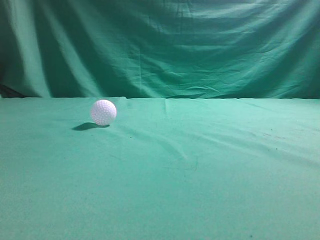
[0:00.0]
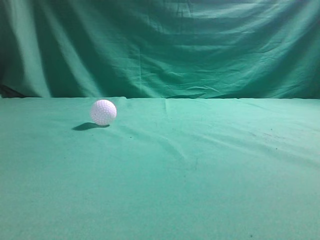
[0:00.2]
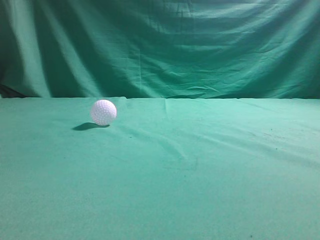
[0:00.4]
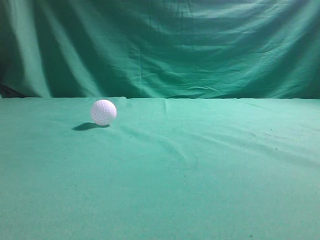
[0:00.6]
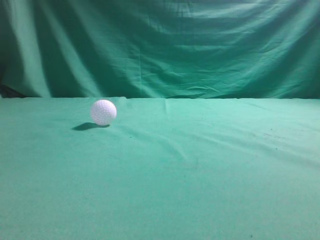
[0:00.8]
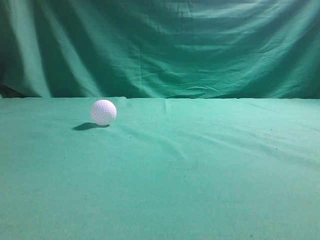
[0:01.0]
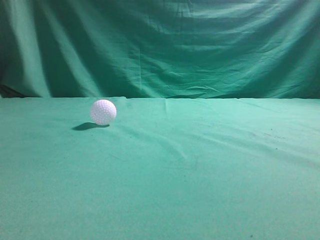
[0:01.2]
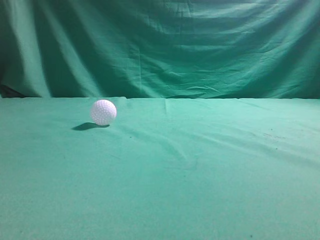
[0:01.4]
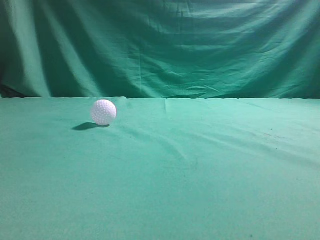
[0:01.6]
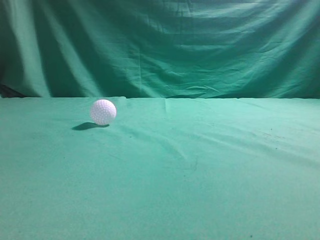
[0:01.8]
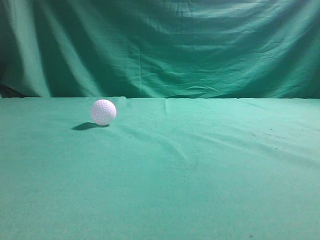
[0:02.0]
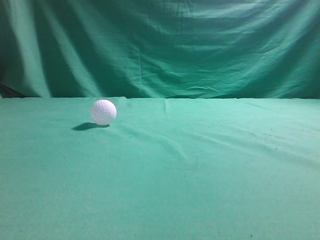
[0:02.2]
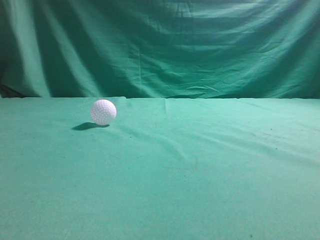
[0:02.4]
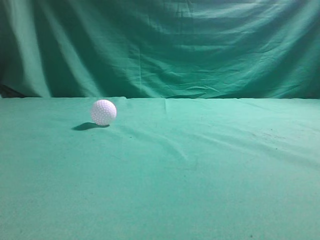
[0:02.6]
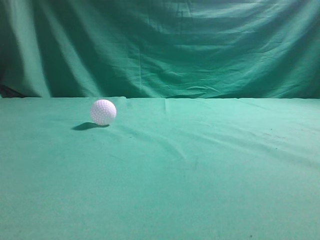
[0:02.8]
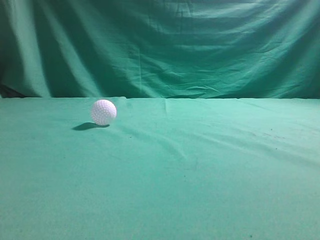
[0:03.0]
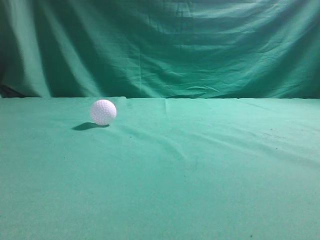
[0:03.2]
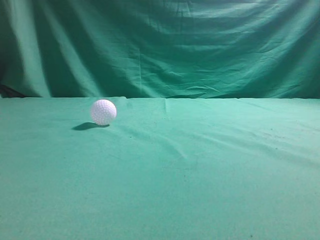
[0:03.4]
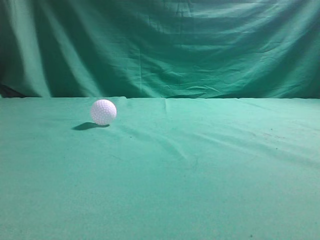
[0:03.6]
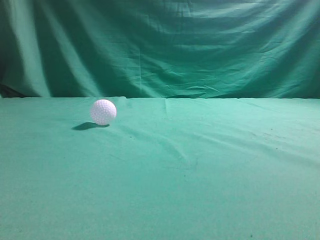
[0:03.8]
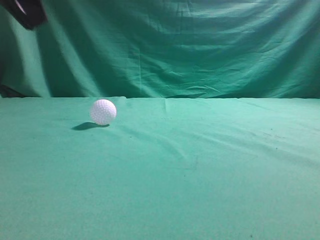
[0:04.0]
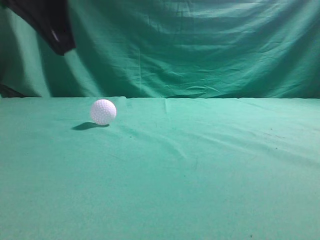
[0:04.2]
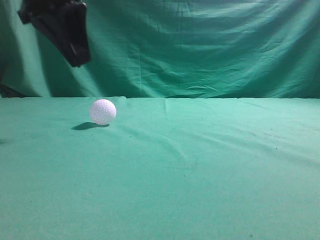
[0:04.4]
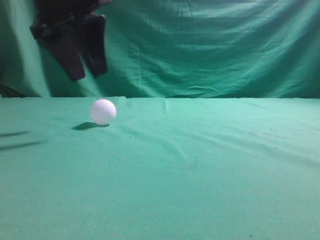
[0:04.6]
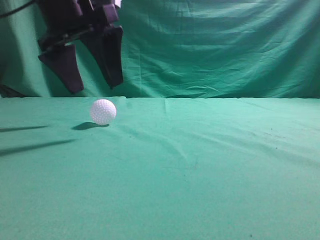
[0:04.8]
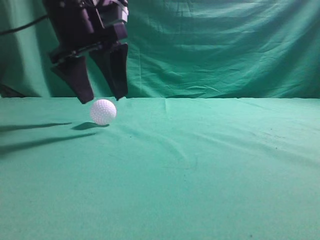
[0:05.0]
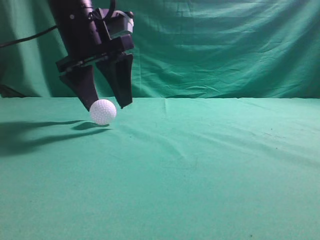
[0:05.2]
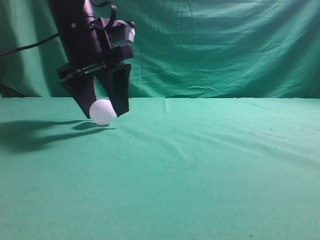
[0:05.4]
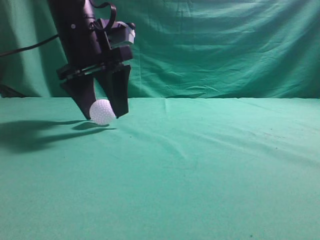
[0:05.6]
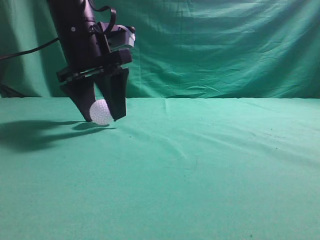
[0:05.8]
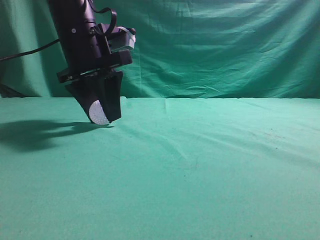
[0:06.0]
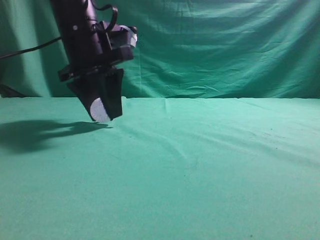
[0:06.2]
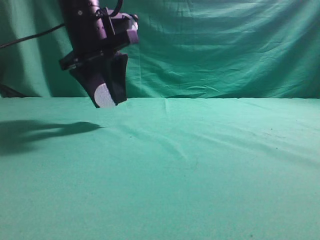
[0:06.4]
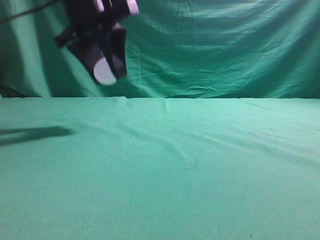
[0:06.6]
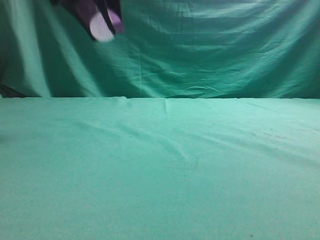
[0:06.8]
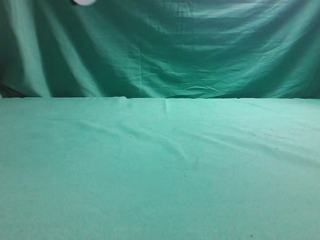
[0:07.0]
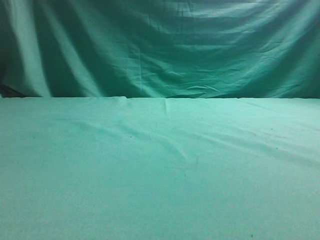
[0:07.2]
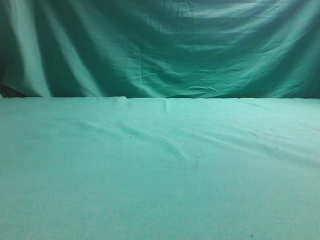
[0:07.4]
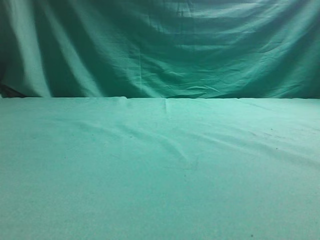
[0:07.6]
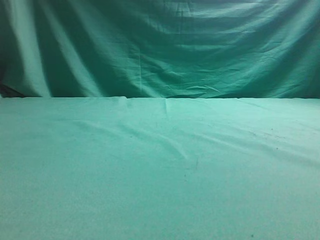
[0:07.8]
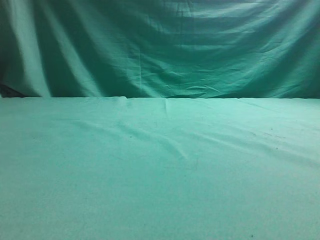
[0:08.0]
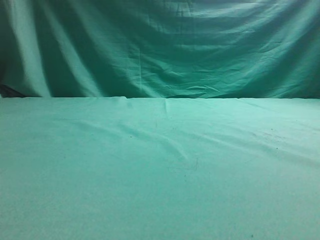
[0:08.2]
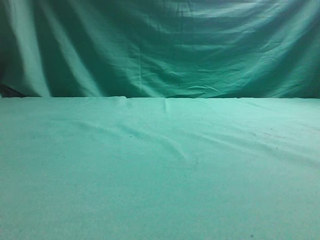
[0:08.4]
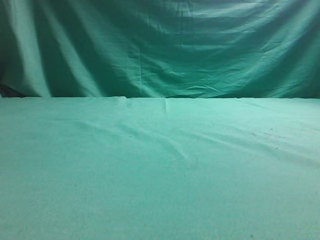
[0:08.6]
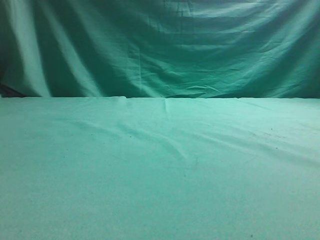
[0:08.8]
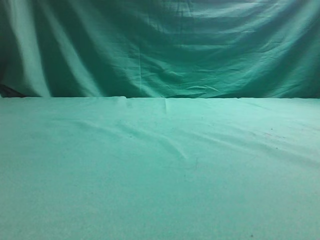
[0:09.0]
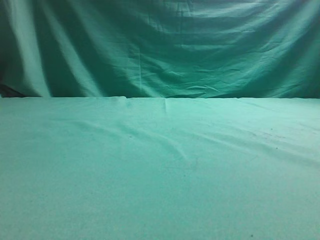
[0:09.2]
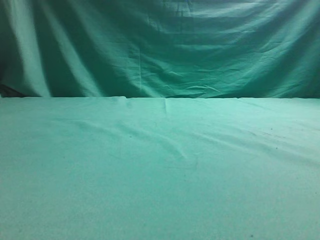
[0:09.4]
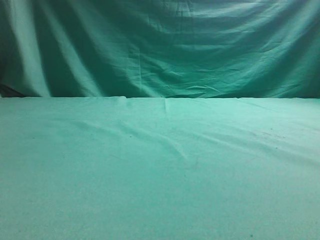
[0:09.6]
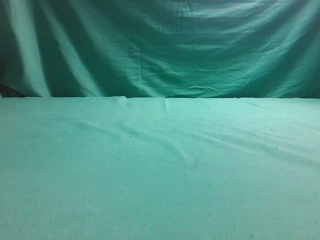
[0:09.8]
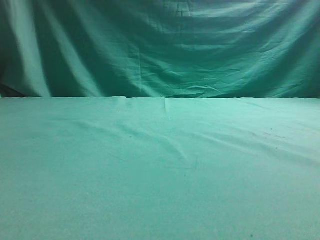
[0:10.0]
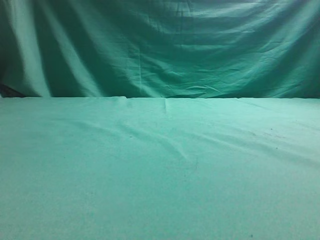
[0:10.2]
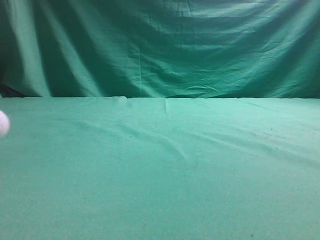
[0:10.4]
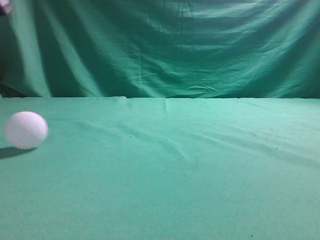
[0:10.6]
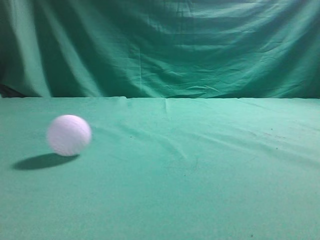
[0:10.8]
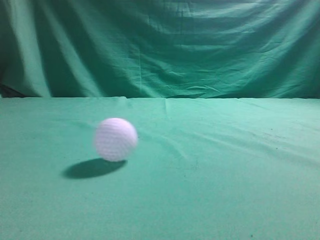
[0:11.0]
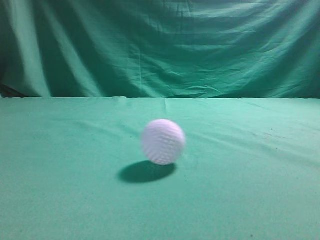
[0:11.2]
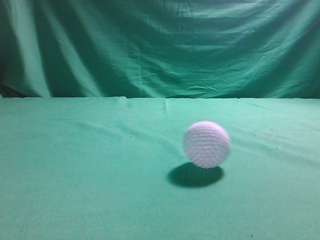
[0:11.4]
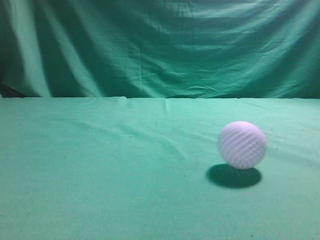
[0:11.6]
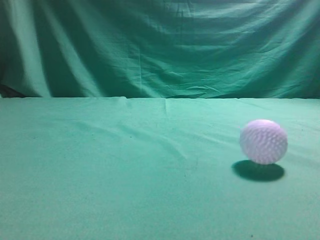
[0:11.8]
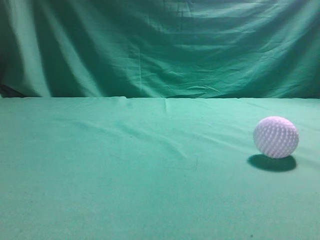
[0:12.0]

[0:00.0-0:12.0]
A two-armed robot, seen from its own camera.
Task of the whole recording: pick up the ball and place it on the plate, then pick up the ball from the plate and put it in the center of the table.
Step, 0:00.0 to 0:06.4: Grab the spherical object with your left arm.
Step, 0:06.6 to 0:09.8: Place the sphere on the white object.
0:03.0 to 0:04.4: The left gripper moves forward and to the right, some 30 cm.
0:04.4 to 0:06.0: The left gripper goes roughly 10 cm downward and forward, and opens its fingers.
0:06.0 to 0:07.6: The left gripper shifts approximately 25 cm upward, to the left and backward. Meanwhile the right gripper heads upward, covering some 5 cm.

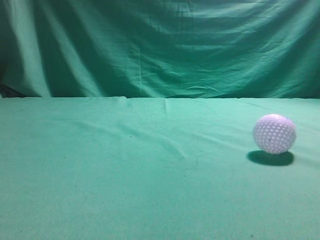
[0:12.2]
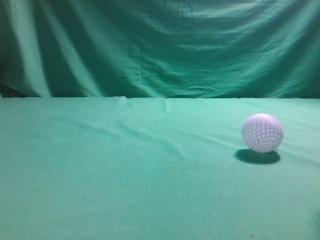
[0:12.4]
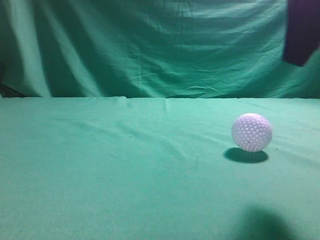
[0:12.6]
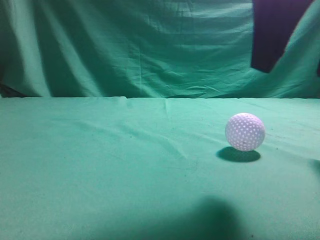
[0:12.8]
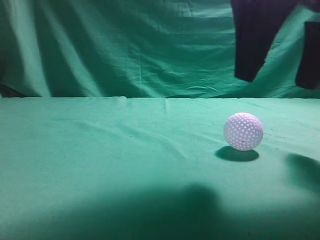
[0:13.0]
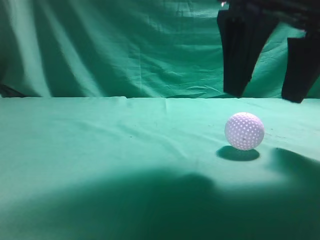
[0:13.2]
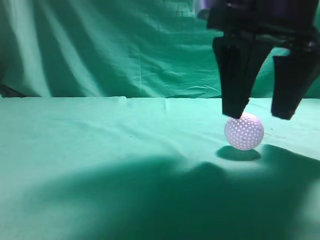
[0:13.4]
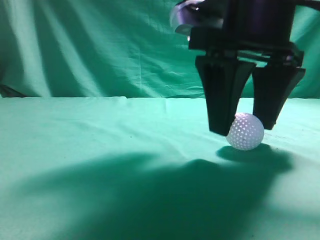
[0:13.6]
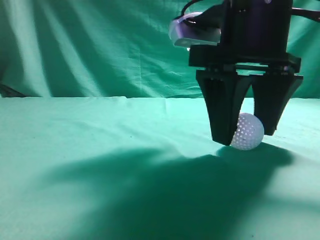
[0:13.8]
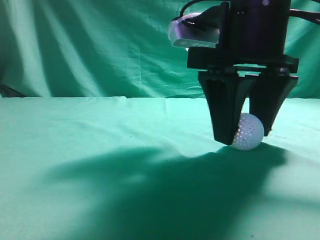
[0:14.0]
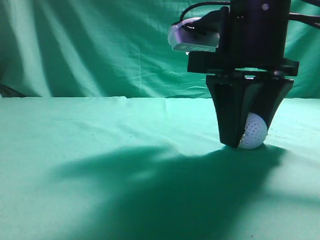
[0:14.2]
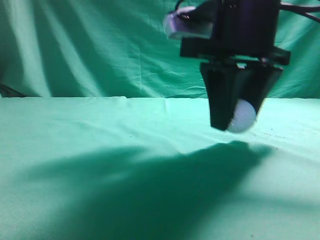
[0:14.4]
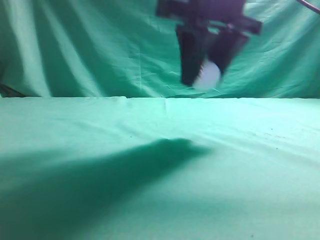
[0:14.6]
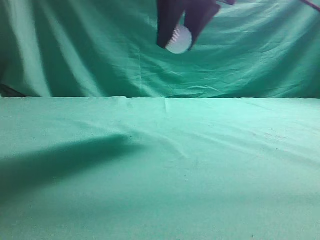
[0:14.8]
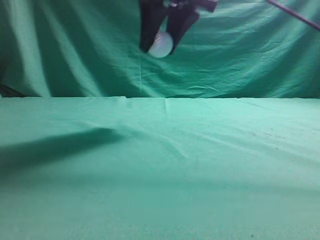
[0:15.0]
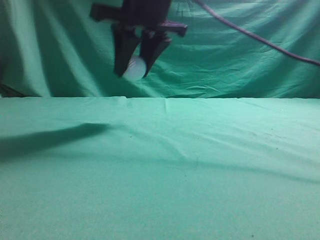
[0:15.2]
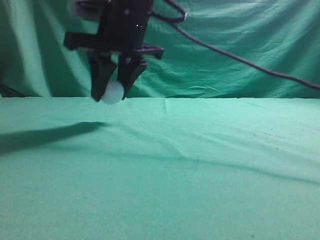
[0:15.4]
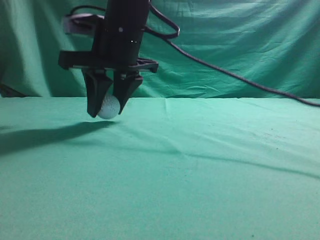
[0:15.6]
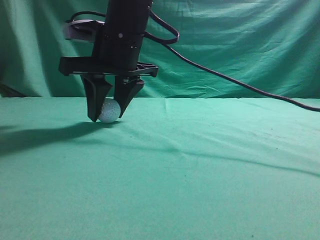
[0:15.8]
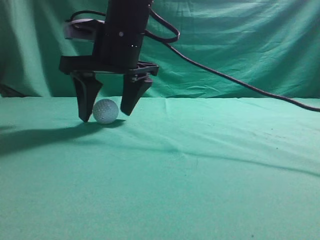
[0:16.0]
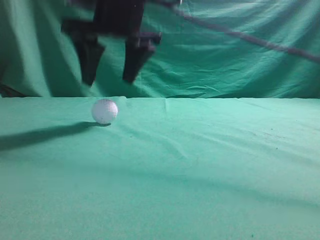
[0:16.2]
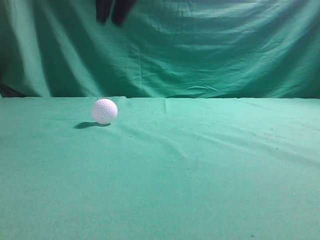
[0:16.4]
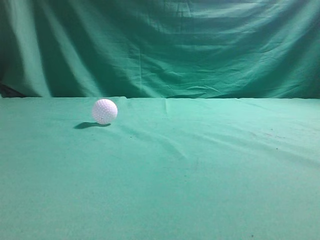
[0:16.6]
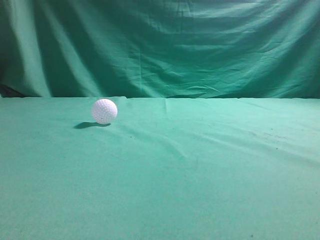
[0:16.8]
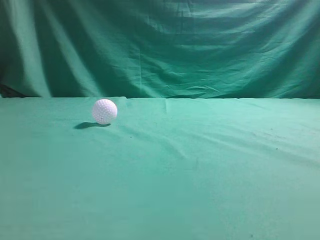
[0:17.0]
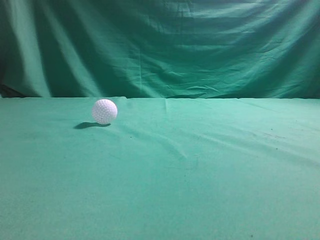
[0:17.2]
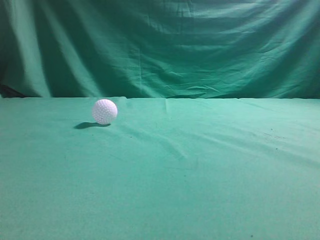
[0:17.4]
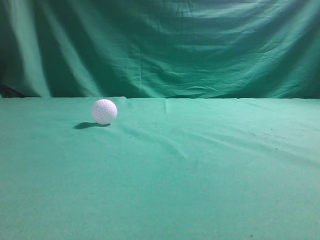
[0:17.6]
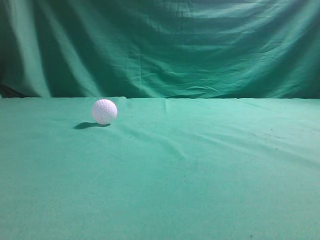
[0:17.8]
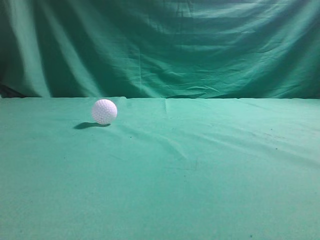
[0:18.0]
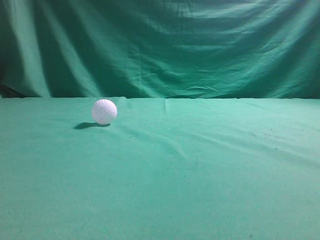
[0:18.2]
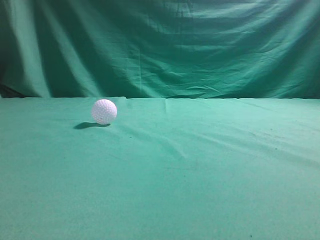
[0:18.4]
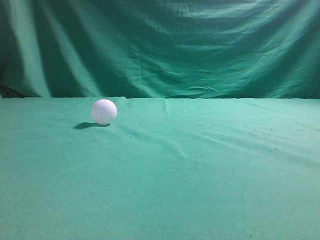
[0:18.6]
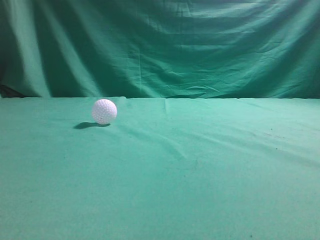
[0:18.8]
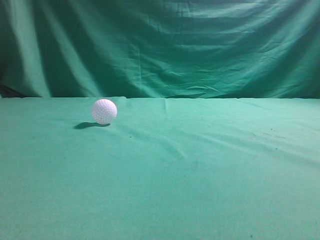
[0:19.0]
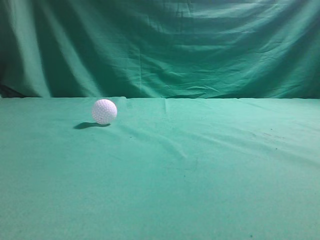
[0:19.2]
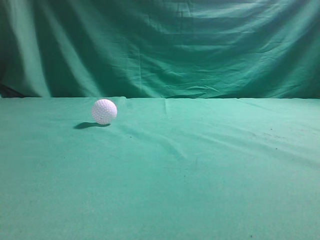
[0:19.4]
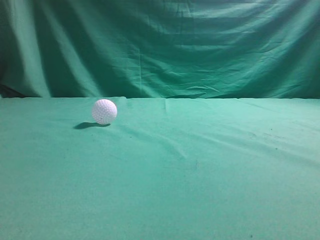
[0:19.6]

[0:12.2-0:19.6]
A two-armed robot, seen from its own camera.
Task of the whole recording: pick up the ball and place it on the plate, then pick up the ball from the plate and put it in the center of the table.
Step, 0:12.2 to 0:14.4: Grab the rolling spherical object.
Step, 0:14.6 to 0:16.0: Put the picked-up object on the table.
0:12.2 to 0:13.6: The right gripper shifts approximately 15 cm forward, to the left and downward, and opens.
0:13.6 to 0:15.2: The right gripper moves to the left, forward and upward, about 15 cm, and closes up.
0:15.2 to 0:16.6: The right gripper travels upward by roughly 15 cm, and closes up.
